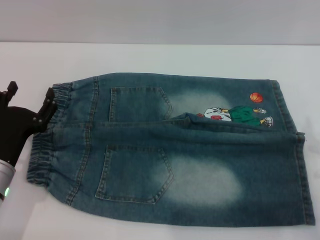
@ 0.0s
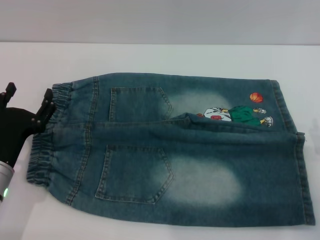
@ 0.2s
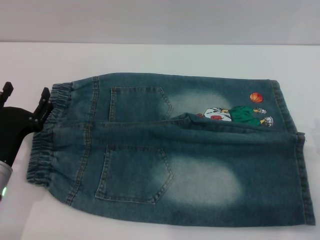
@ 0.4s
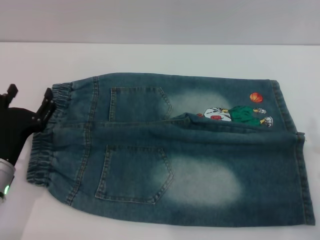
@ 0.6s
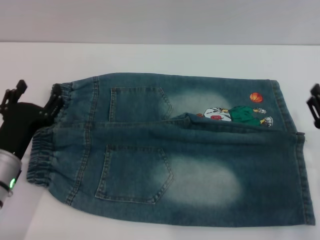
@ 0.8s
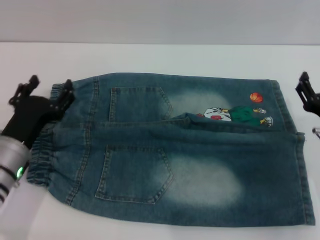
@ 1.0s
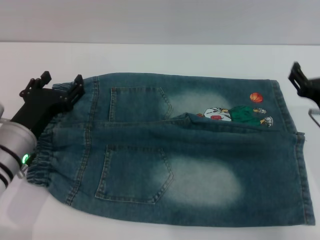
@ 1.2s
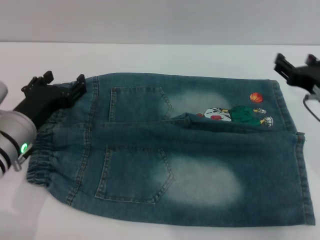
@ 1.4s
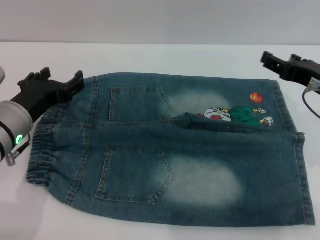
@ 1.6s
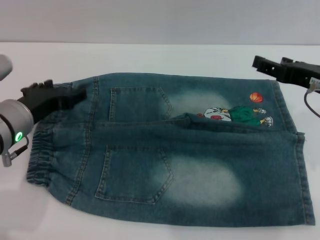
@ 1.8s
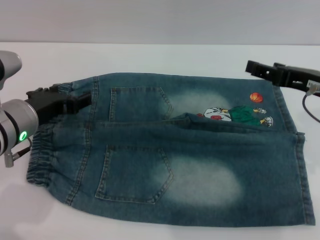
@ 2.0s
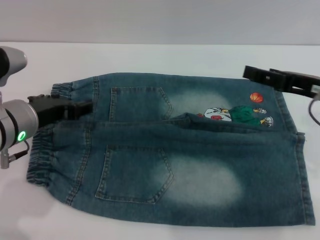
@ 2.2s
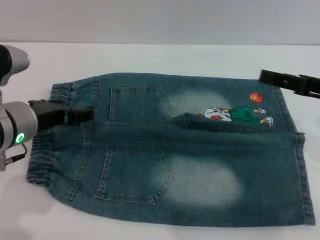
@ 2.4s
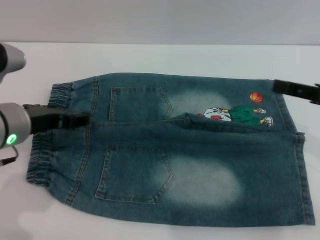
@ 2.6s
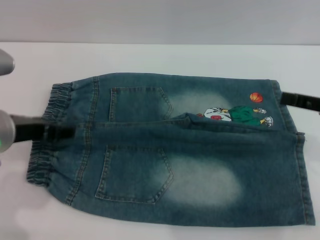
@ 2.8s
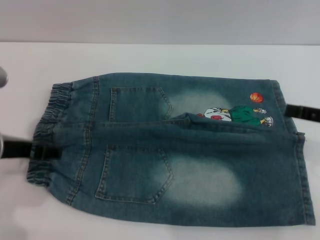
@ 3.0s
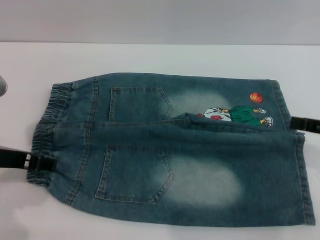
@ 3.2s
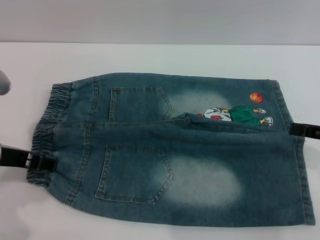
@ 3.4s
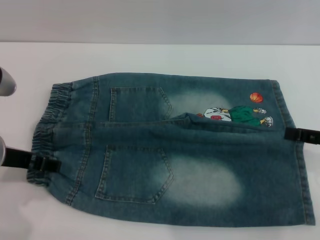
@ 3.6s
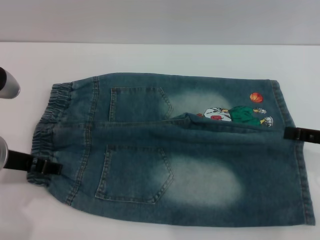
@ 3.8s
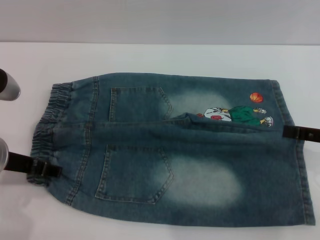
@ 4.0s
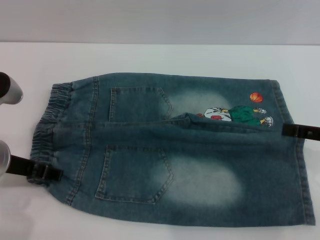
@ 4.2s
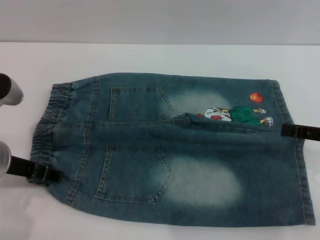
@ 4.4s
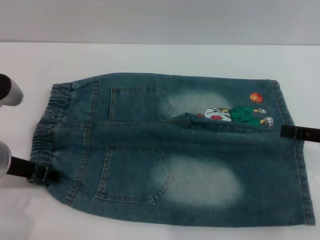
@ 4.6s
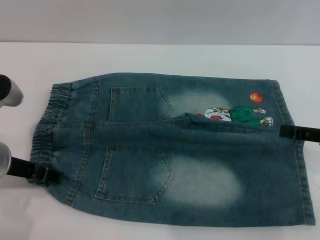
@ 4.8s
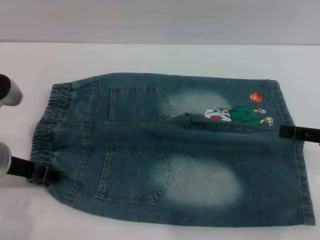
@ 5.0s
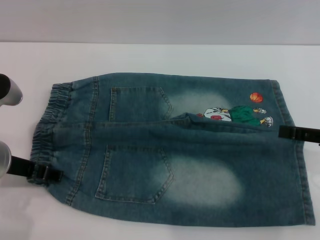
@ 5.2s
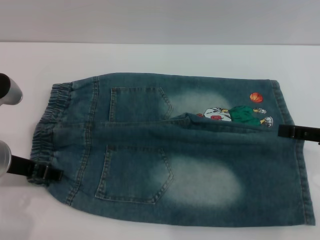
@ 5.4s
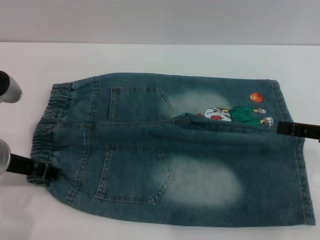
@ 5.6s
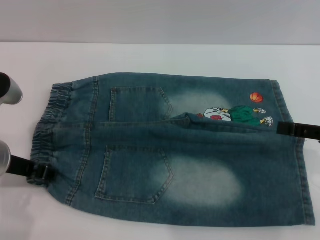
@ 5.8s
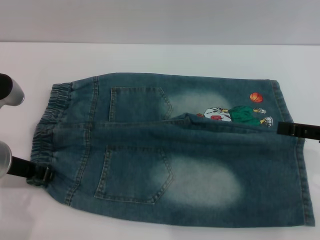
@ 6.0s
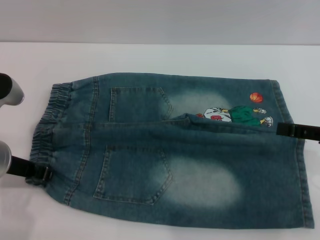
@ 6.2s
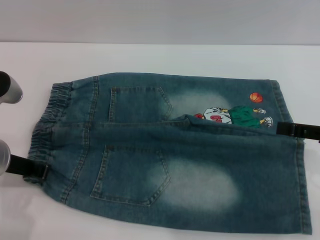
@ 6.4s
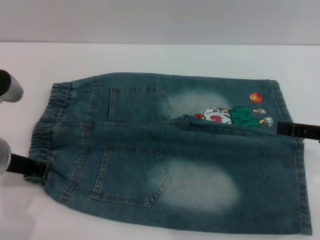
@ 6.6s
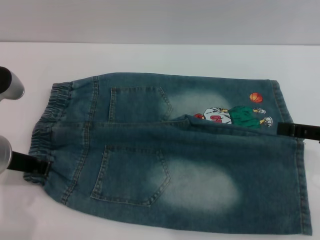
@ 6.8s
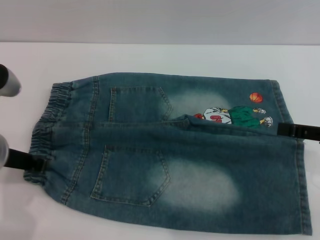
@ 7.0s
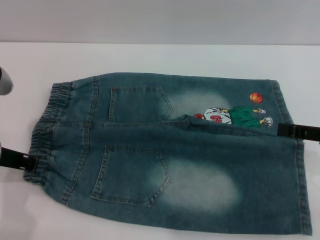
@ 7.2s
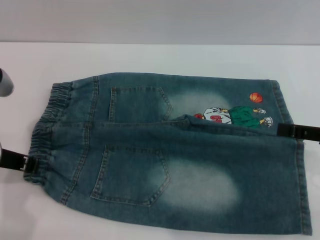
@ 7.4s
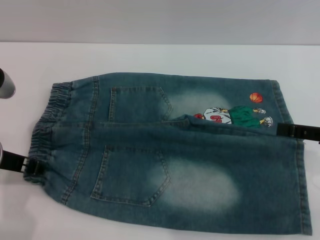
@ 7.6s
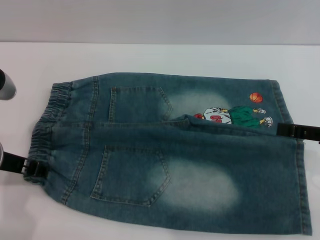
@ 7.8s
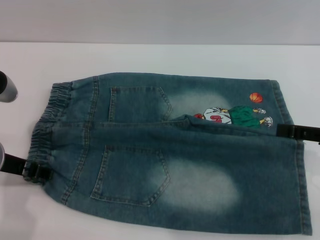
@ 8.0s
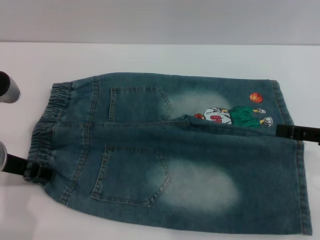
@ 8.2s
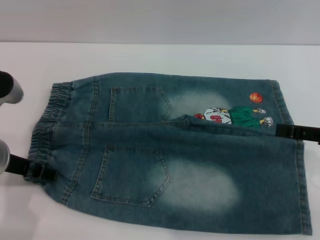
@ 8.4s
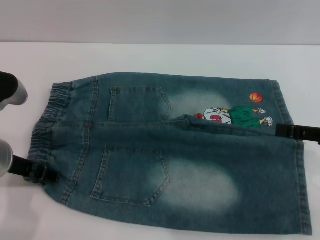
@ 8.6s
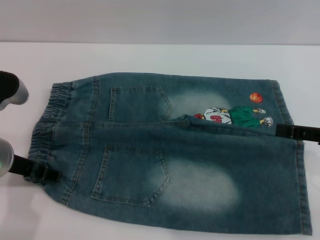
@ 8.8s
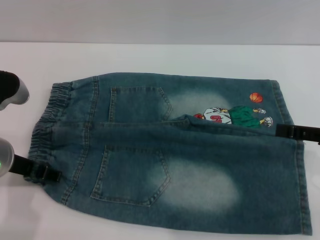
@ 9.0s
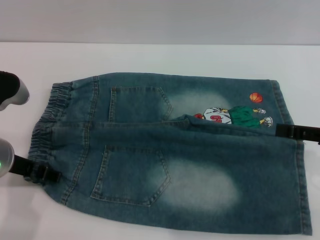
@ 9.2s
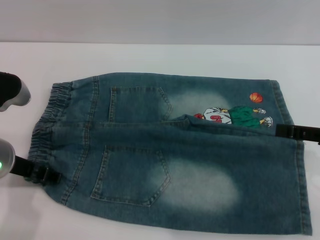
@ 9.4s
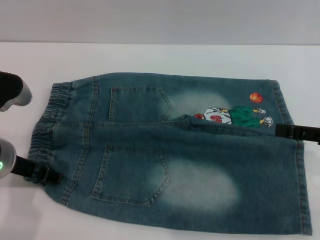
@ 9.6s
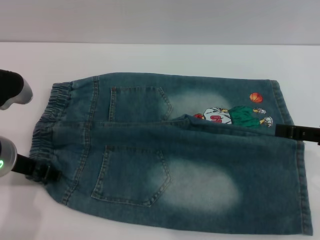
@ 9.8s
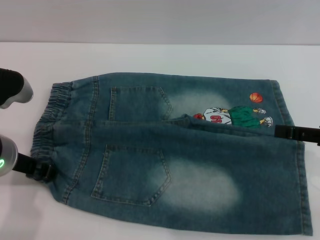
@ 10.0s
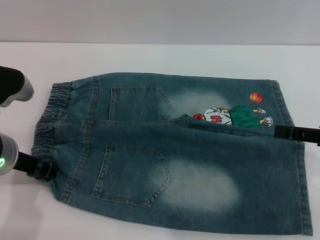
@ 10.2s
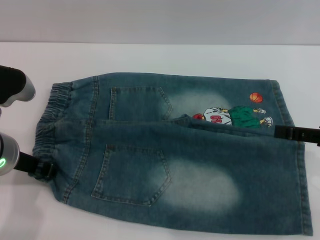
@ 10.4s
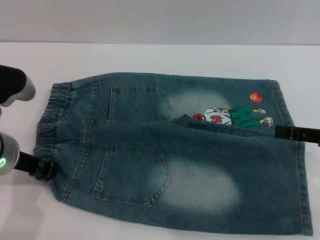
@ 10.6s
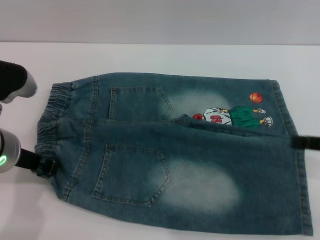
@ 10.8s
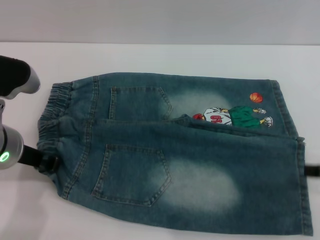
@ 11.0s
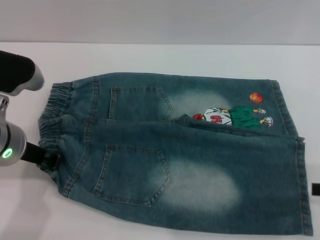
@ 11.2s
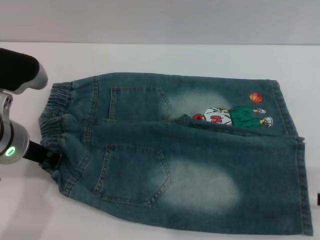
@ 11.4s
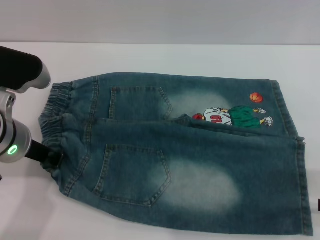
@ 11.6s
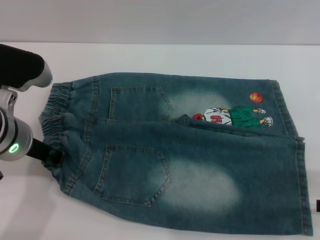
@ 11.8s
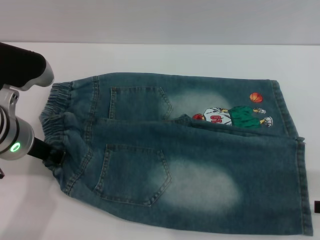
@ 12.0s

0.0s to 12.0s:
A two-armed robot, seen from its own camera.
0.0s to 1.6s: The left gripper goes approximately 10 cm upward and forward; the right gripper travels upward and forward by roughly 15 cm.
1.6s to 3.0s: The right gripper shifts about 10 cm to the right and backward. The left gripper ends up roughly 5 cm from where it was.
3.0s to 4.4s: The grippers make only small movements.
4.4s to 6.0s: Both grippers stay put.
6.0s to 7.6s: The left gripper closes its fingers.
7.6s to 9.0s: The left gripper opens up.
9.0s to 10.4s: The left gripper closes.
10.4s to 12.0s: The right gripper changes place by approximately 10 cm.

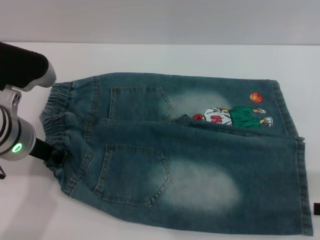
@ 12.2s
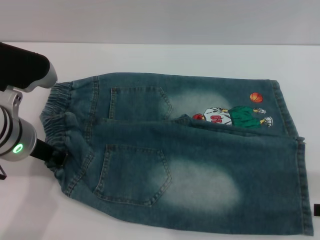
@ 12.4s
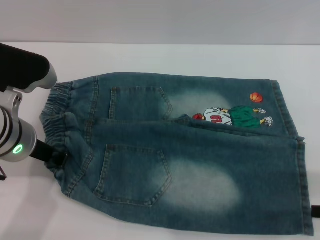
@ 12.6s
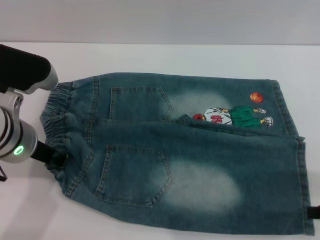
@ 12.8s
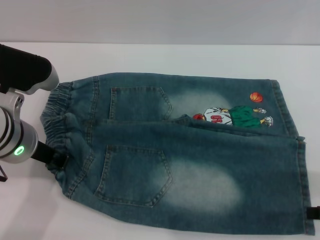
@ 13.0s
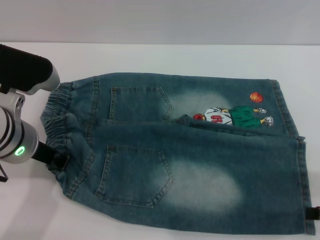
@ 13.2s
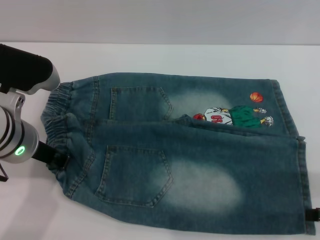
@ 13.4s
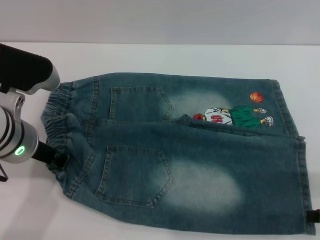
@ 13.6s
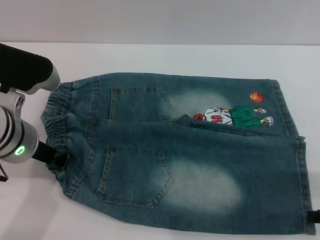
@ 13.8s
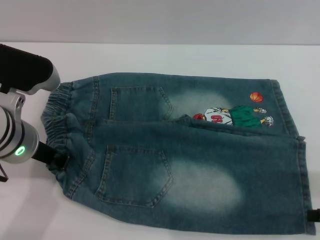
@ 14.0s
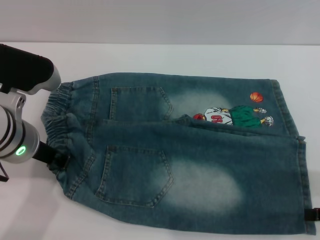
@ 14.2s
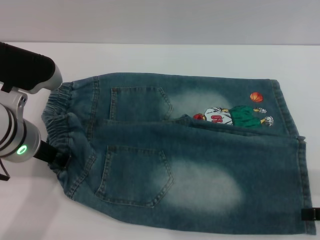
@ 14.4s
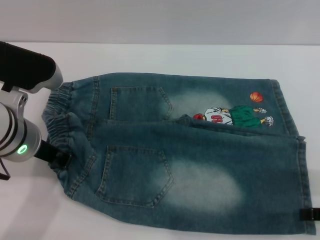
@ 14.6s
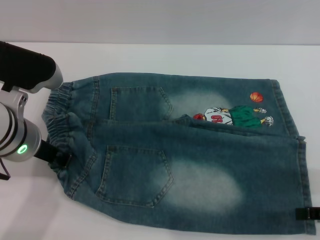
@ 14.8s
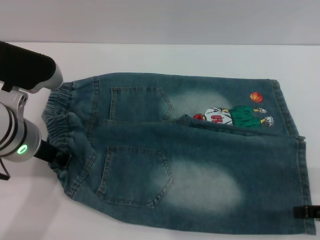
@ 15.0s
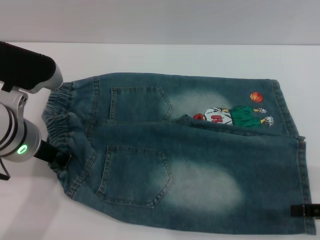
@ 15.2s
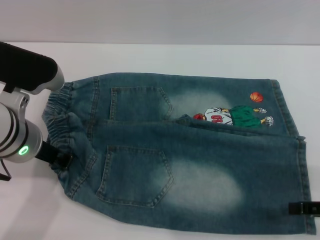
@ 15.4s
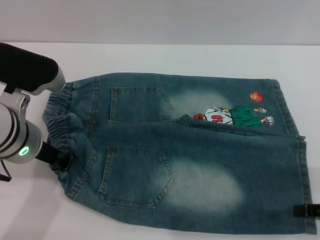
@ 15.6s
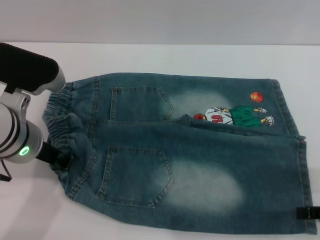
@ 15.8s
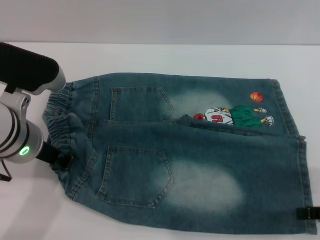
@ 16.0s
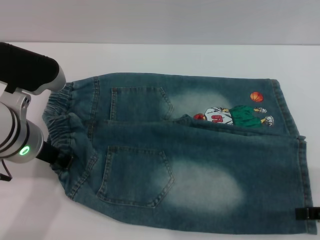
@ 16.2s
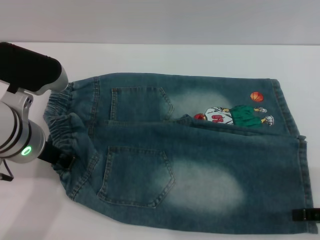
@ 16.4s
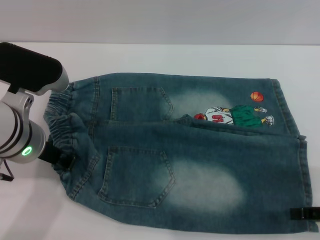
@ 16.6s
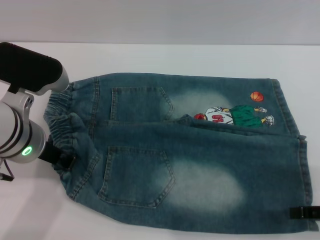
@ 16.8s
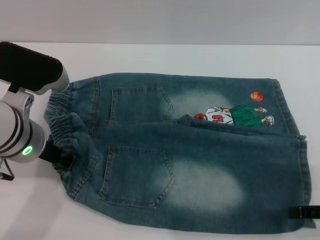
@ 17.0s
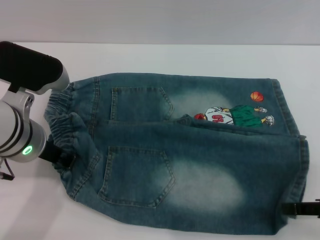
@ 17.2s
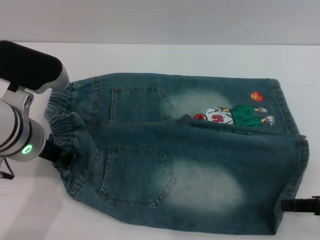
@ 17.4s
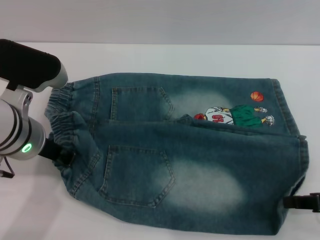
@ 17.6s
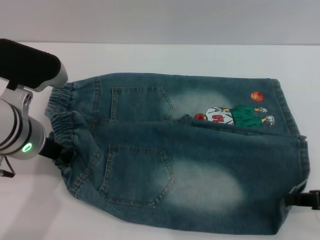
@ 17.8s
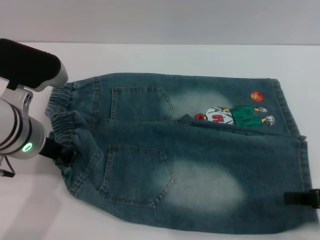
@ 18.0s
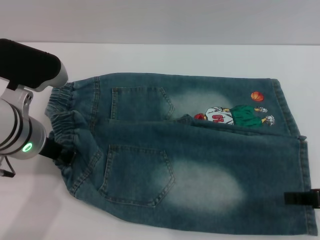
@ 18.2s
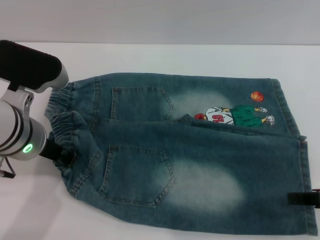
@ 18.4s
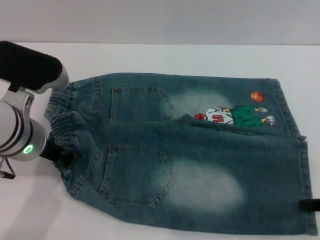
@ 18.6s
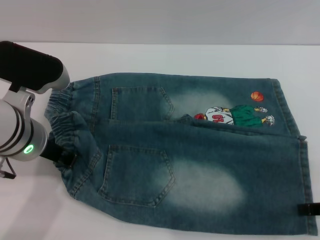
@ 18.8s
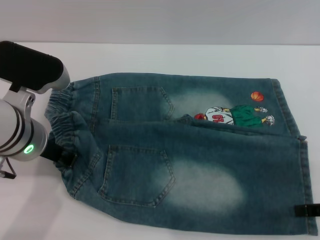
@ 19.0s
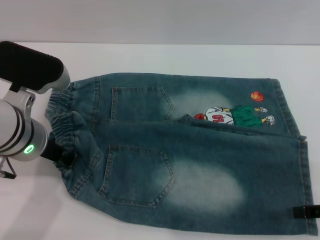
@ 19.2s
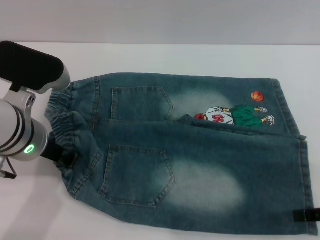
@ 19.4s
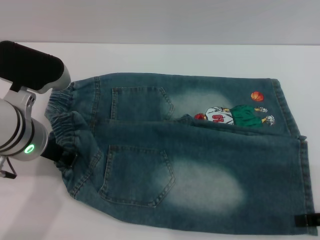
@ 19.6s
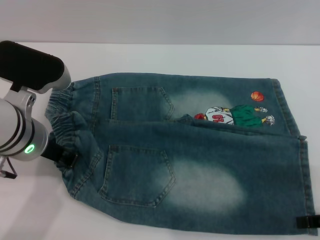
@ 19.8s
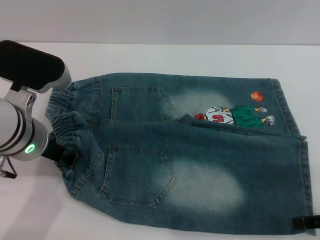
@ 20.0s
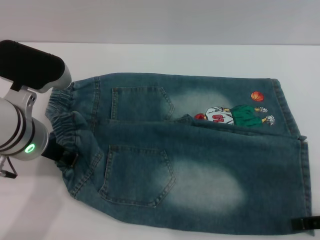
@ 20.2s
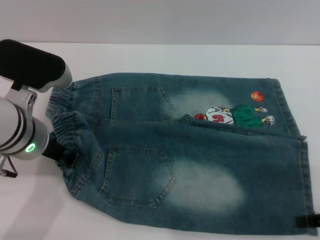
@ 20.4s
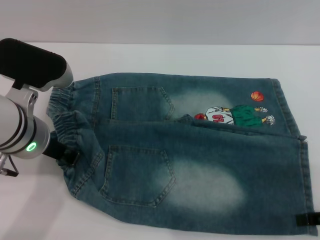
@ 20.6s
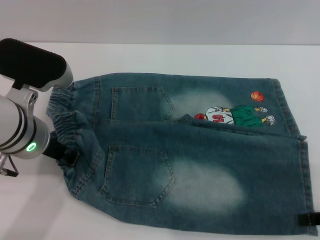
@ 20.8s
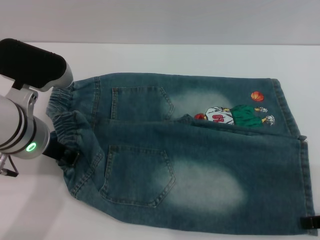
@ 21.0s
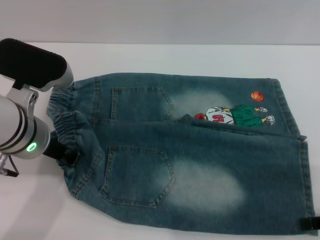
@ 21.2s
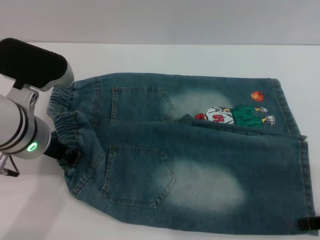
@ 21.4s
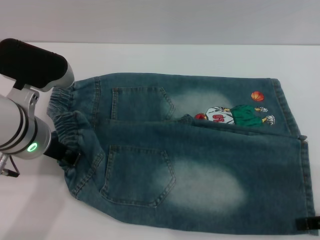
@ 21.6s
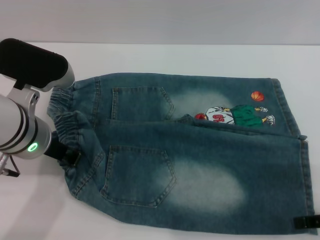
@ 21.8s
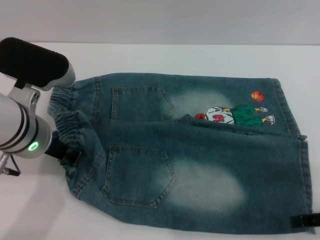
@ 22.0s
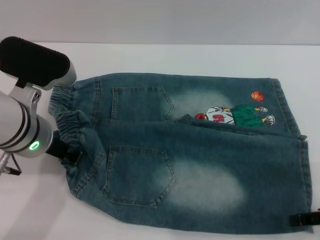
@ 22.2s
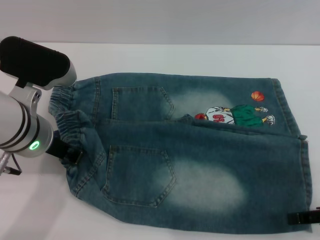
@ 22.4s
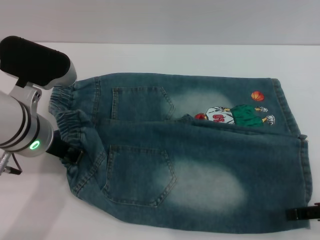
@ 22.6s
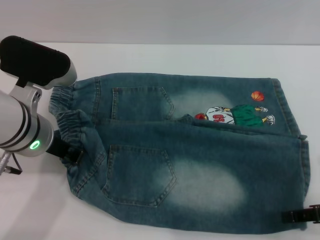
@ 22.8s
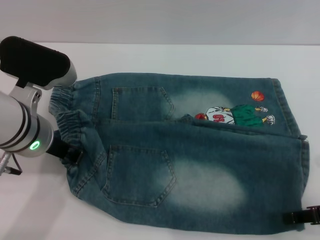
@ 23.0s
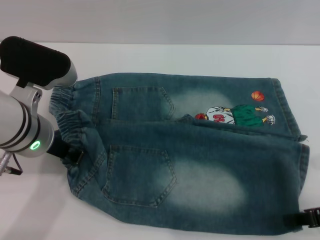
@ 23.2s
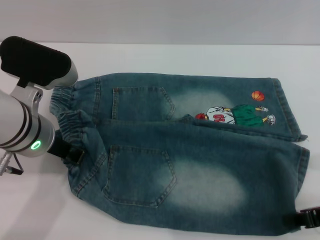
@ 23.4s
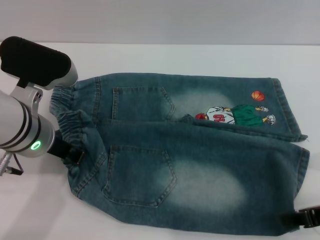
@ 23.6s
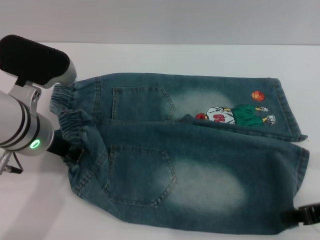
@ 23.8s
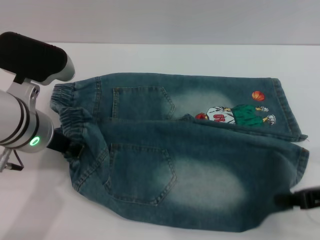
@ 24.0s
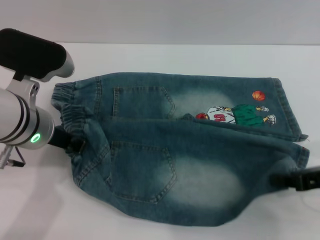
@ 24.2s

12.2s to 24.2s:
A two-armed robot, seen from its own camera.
12.2s to 13.8s: Both grippers stay about where they are.
13.8s to 15.2s: The grippers make only small movements.
15.2s to 16.6s: The two grippers keep their place.
16.6s to 18.2s: The right gripper closes its fingers.
18.2s to 19.8s: The right gripper opens up.
19.8s to 21.2s: Both grippers stay put.
21.2s to 22.6s: The grippers move only a little.
22.6s to 24.2s: The right gripper closes its fingers.
